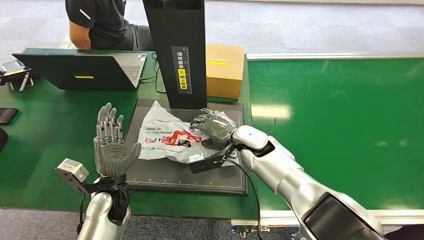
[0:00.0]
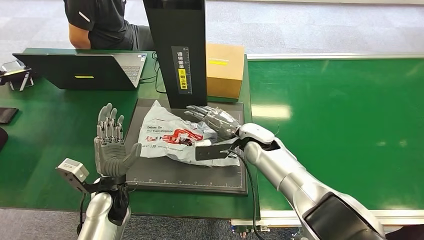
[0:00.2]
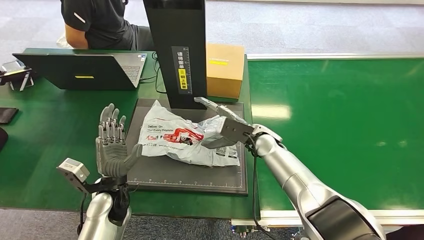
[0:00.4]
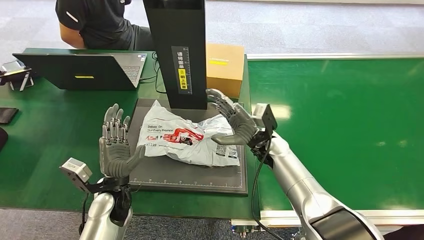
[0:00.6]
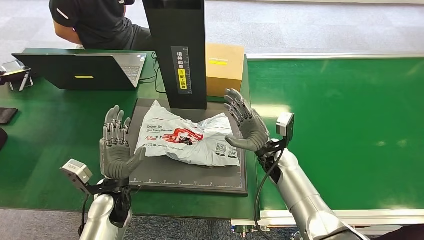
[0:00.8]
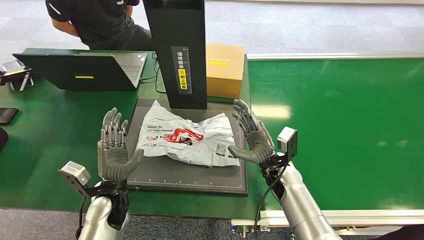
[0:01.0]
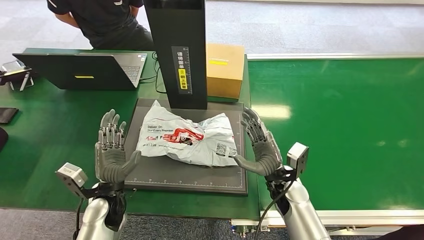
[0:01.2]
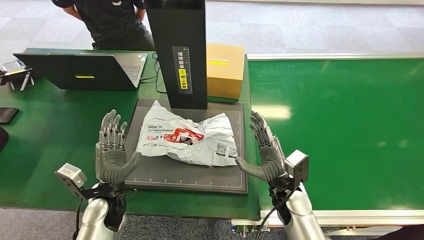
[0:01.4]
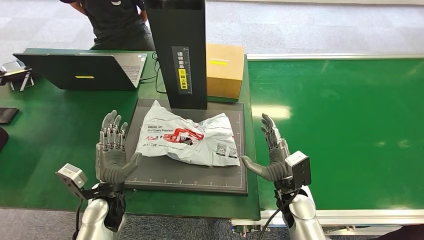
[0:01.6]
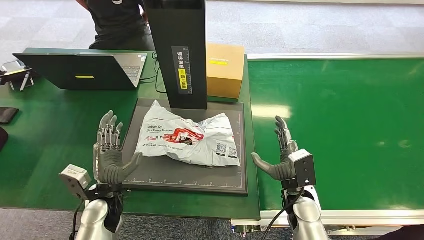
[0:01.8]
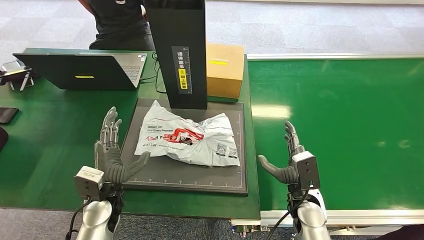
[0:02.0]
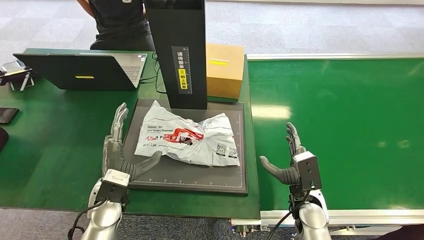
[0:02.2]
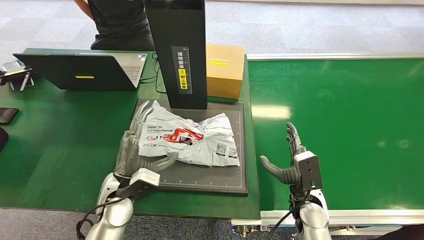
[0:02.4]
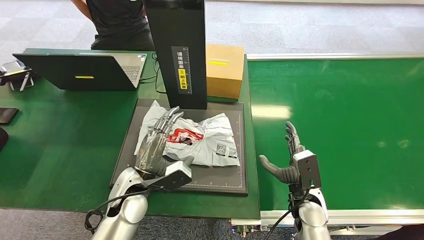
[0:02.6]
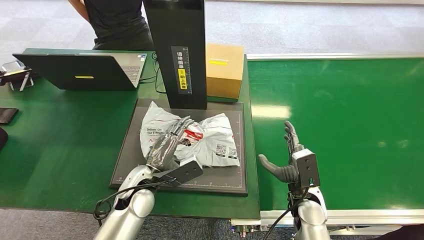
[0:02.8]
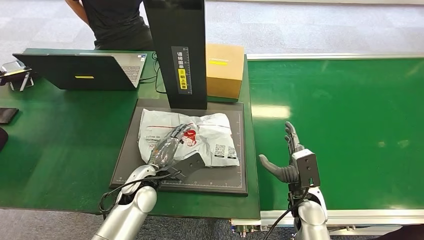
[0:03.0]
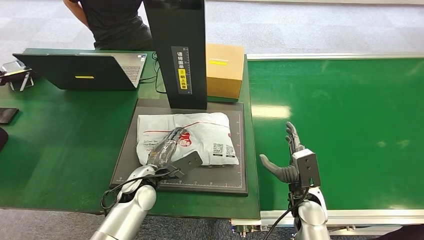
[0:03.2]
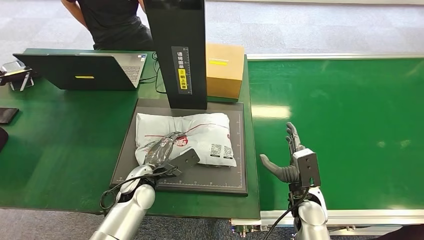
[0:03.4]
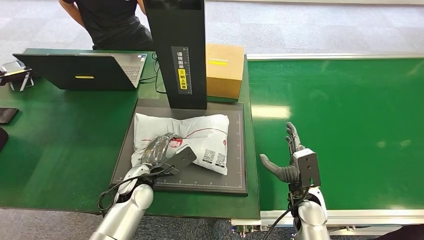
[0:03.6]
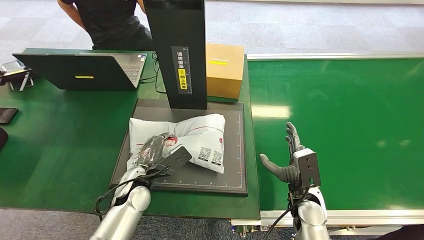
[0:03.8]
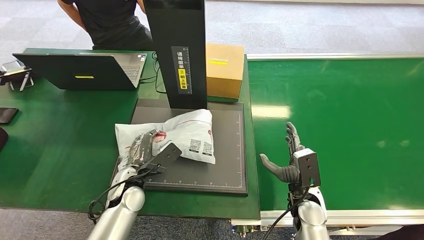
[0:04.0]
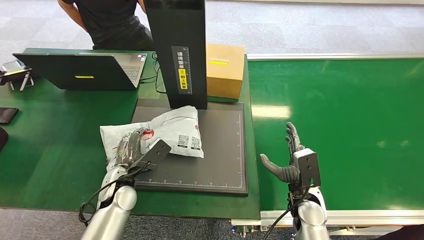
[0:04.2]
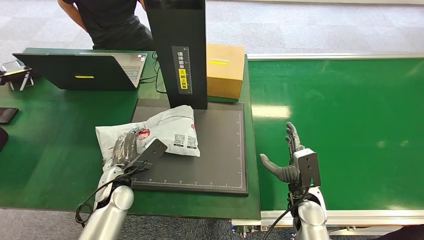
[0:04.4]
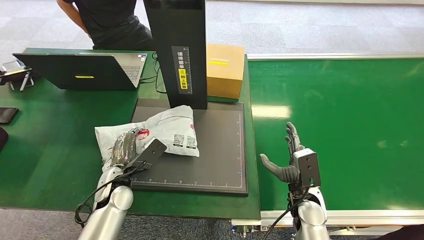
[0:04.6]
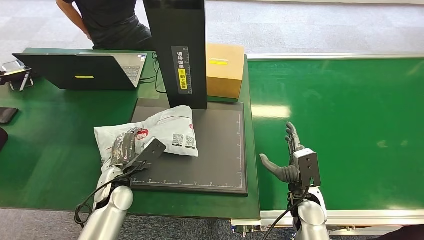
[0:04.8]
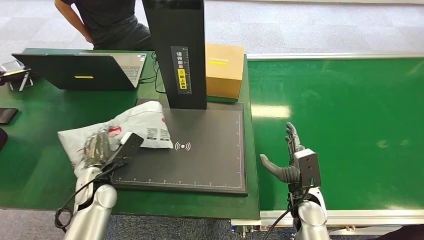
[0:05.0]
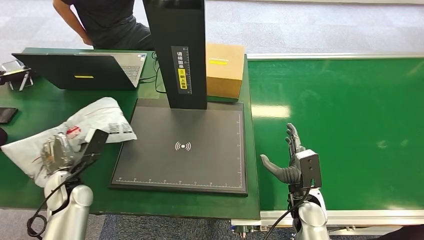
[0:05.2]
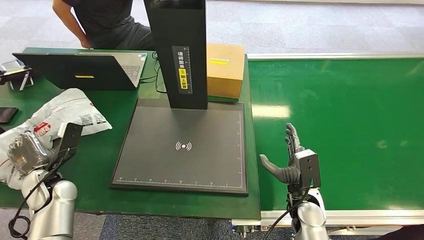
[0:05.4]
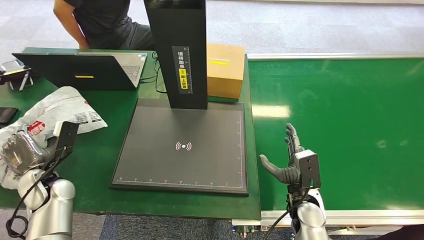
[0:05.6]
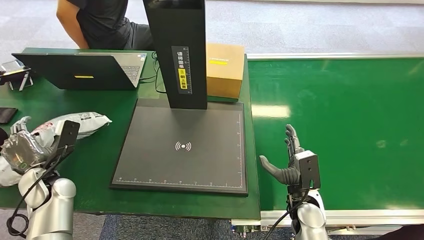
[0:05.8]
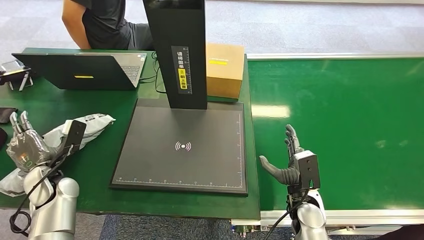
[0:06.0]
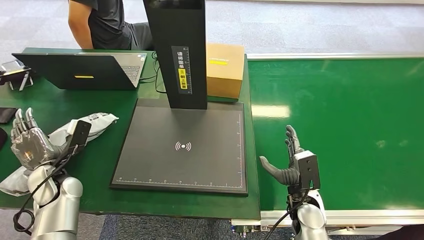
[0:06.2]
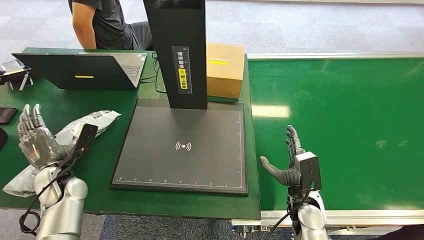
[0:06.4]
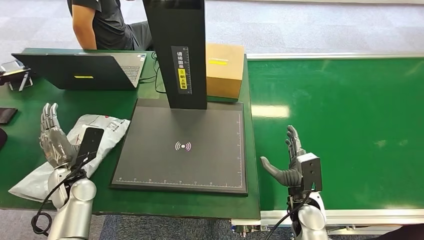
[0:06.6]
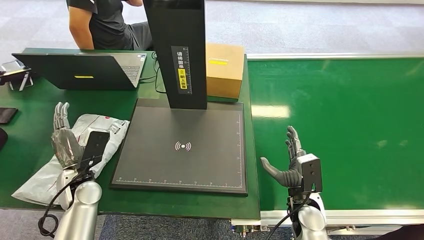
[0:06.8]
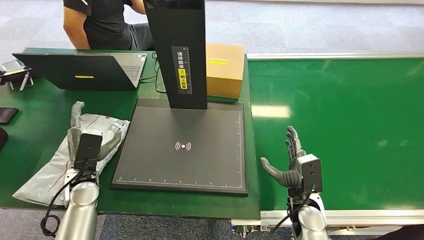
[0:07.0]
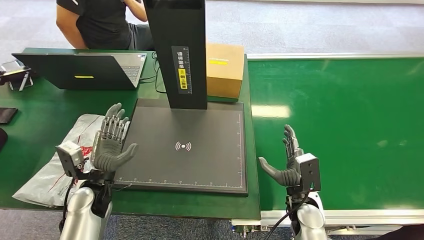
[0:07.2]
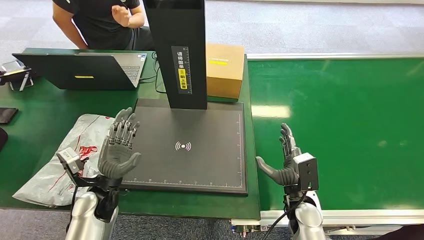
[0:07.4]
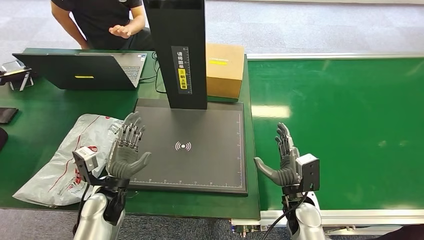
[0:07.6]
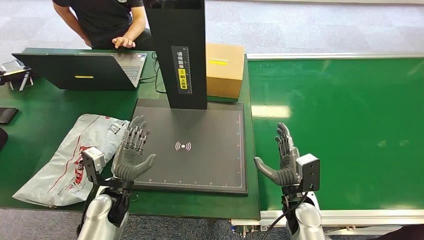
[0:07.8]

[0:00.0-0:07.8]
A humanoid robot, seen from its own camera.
Step, 0:00.0 to 0:01.6: Place the package onto the inbound machine.
Step, 0:02.0 to 0:05.2: Pick up the package from the inbound machine.
Step, 0:05.6 to 0:07.8: Place the package into the parcel locker.
0:00.0 to 0:01.6: The right hand is displaced backward, to the right and downward by approximately 20 cm.
0:01.6 to 0:03.2: The left hand moves to the right, roughly 10 cm.
0:03.2 to 0:04.6: The left hand moves to the left, about 5 cm.
0:04.6 to 0:06.2: The left hand moves to the left, approximately 15 cm.
0:06.2 to 0:07.8: The left hand shifts about 15 cm to the right.
